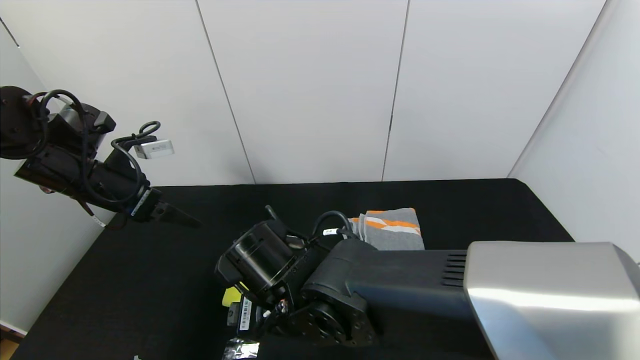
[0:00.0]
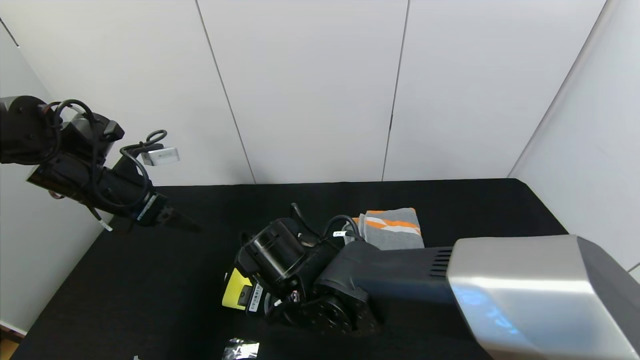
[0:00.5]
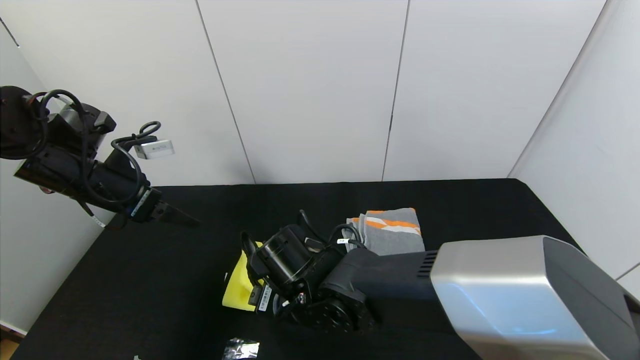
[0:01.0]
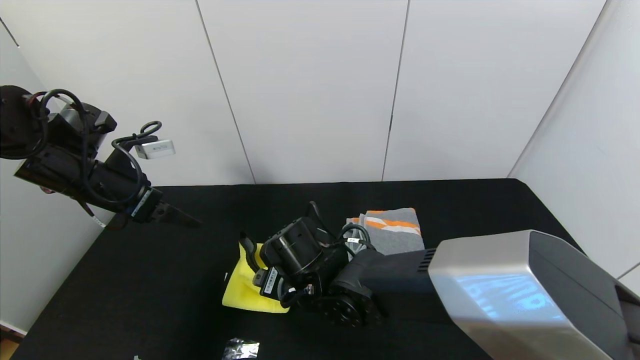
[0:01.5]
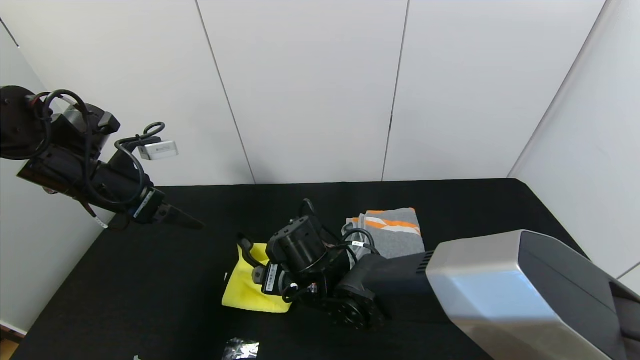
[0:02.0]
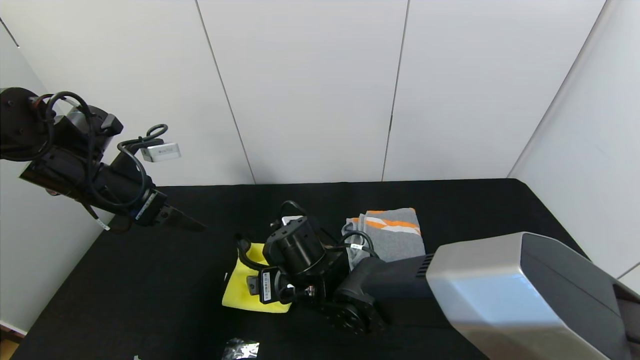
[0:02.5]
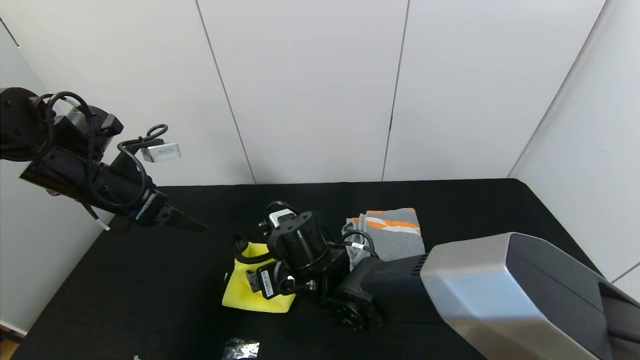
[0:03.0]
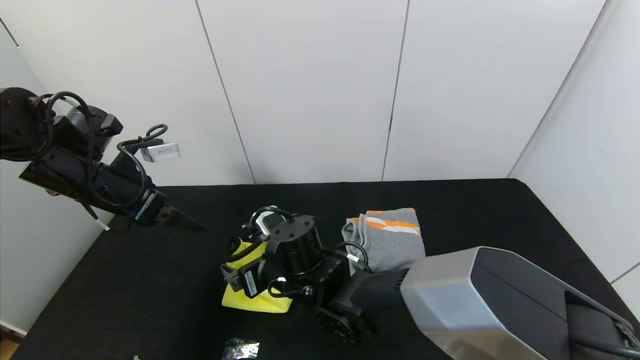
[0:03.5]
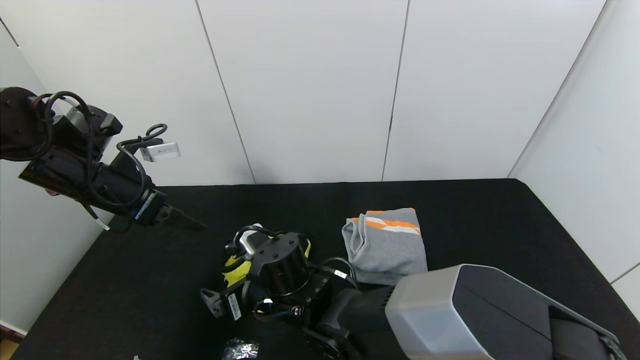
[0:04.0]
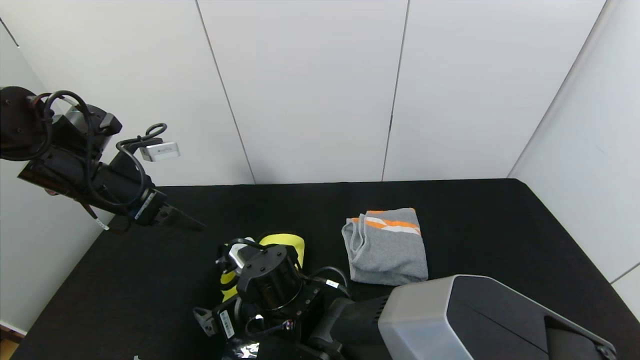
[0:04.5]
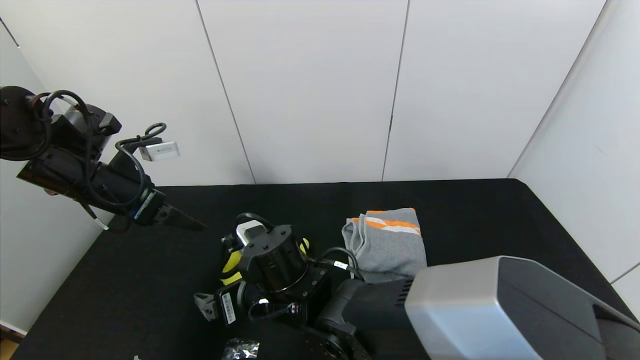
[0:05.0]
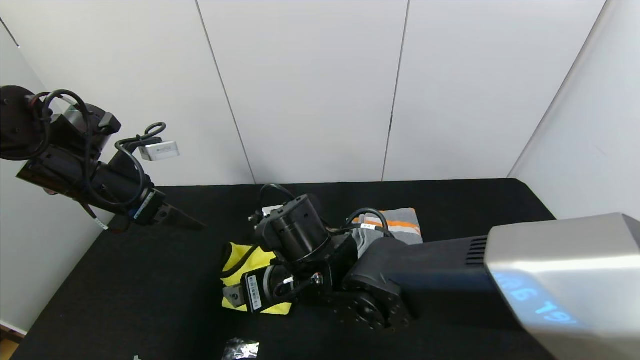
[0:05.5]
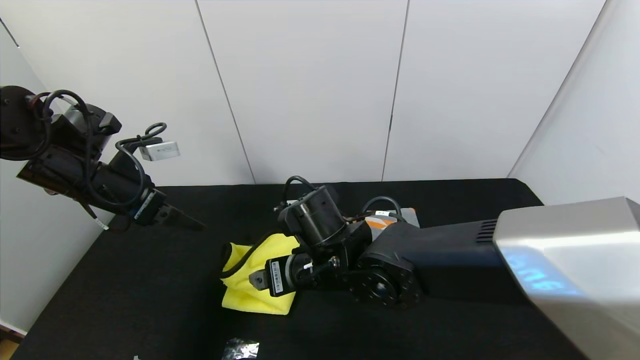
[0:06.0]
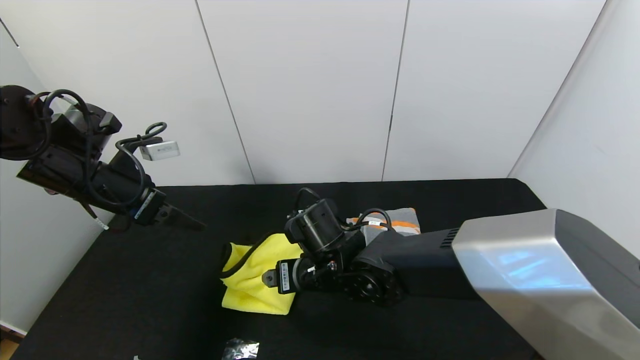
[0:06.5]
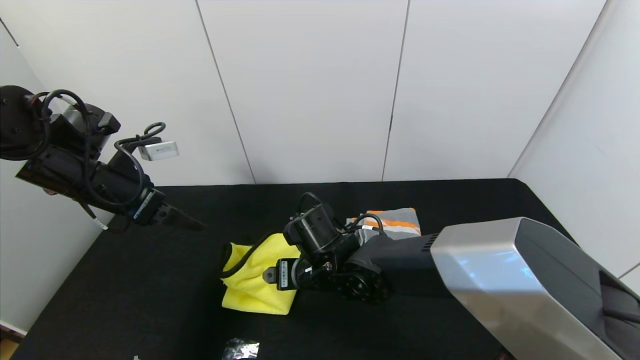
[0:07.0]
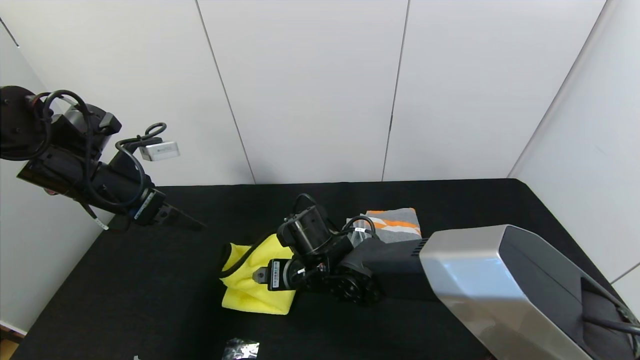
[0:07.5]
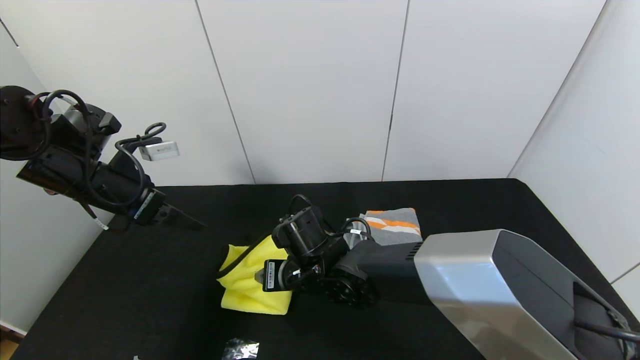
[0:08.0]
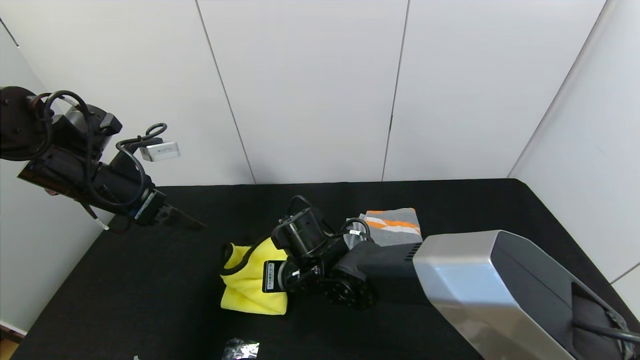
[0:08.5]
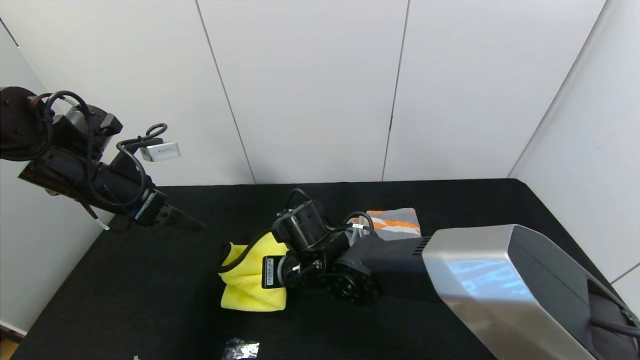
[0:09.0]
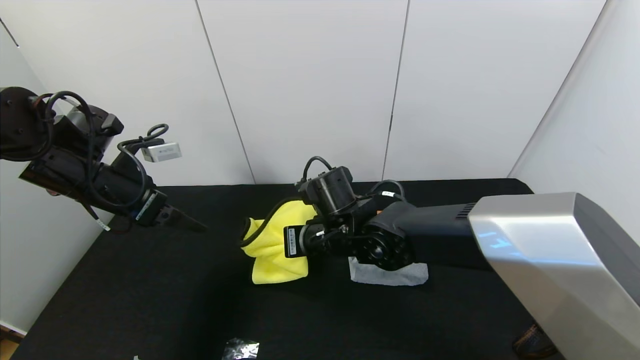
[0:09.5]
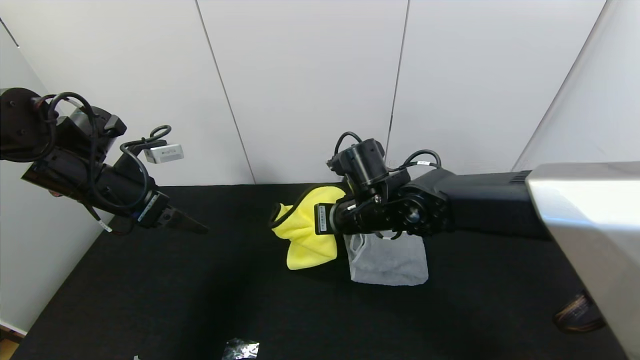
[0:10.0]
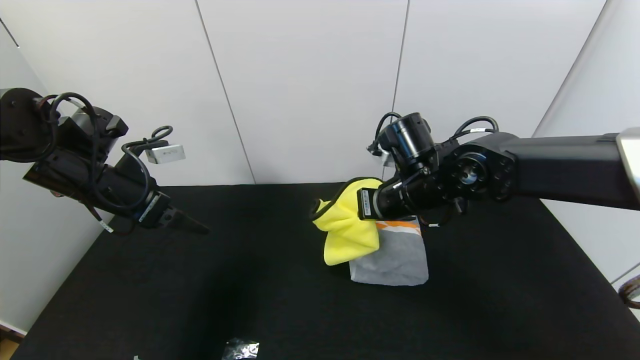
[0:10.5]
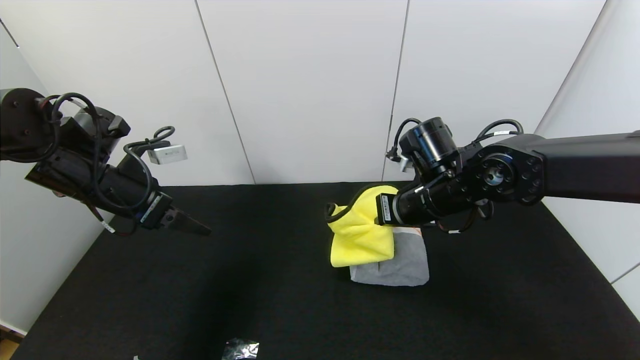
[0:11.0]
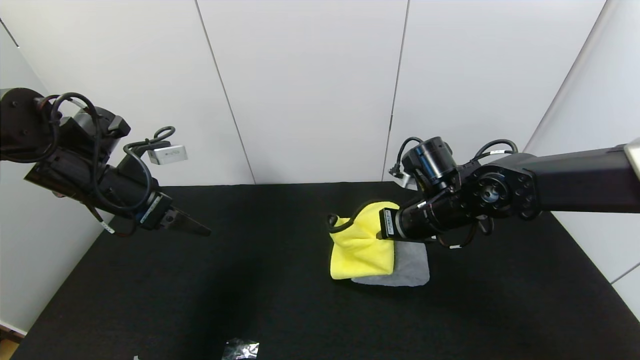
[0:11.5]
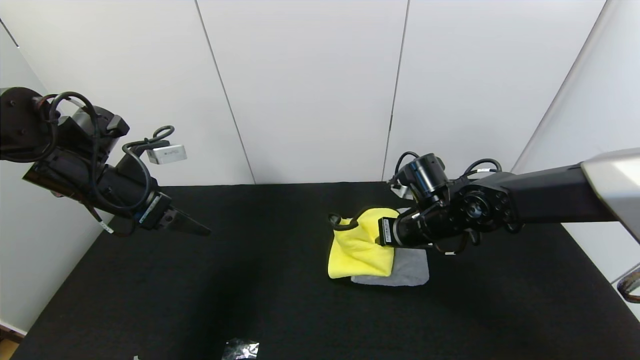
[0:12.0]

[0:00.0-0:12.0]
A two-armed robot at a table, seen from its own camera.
Task of the whole recording: Use the gripper to fold the yellow towel and grey towel in half twice,then put the yellow towel on the grey towel.
Step, 0:00.0 to 0:05.5: Fold the yellow towel from right to left with right gripper.
0:00.0 to 0:02.0: The right gripper heads forward, covering approximately 5 cm.
0:04.0 to 0:06.0: The right gripper moves to the right and upward, some 10 cm.
0:06.0 to 0:08.0: The right gripper shifts roughly 5 cm downward.
0:08.0 to 0:10.0: The right gripper is displaced to the right and upward by approximately 15 cm, and closes its fingers.
0:10.0 to 0:12.0: The right gripper travels to the right by about 10 cm.

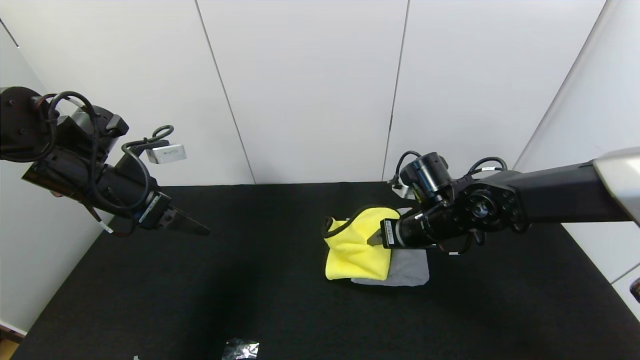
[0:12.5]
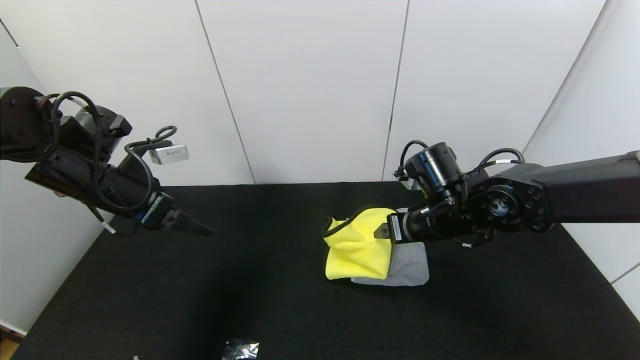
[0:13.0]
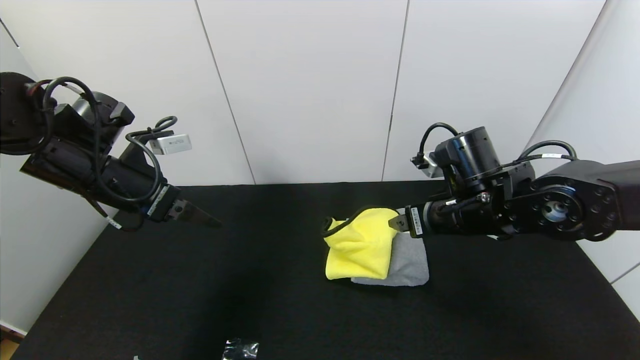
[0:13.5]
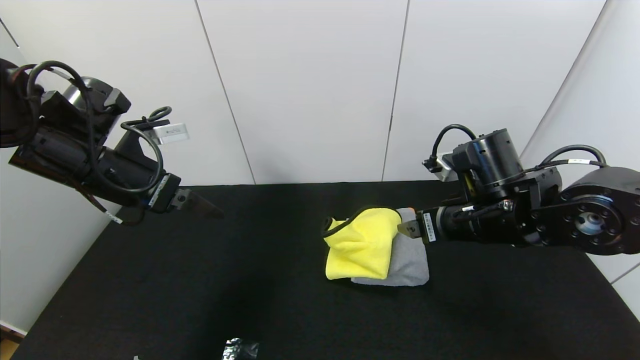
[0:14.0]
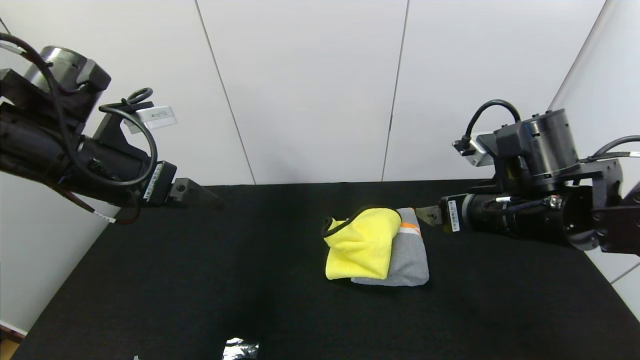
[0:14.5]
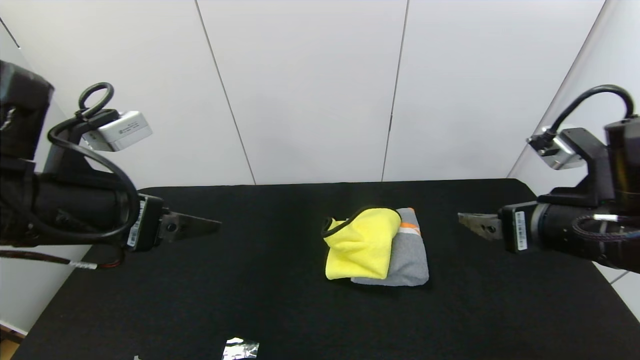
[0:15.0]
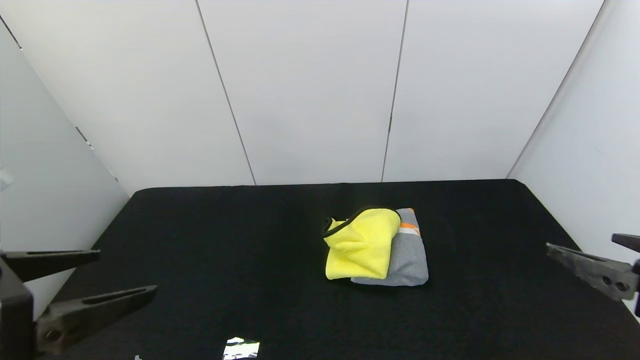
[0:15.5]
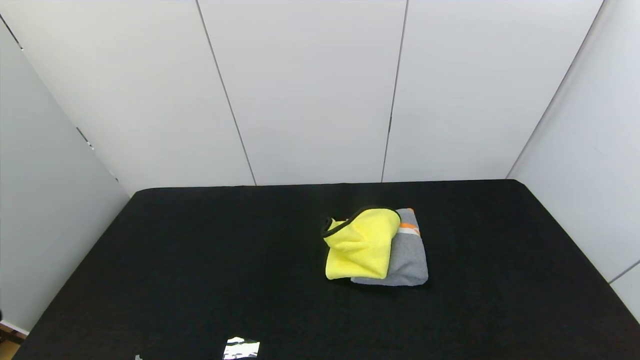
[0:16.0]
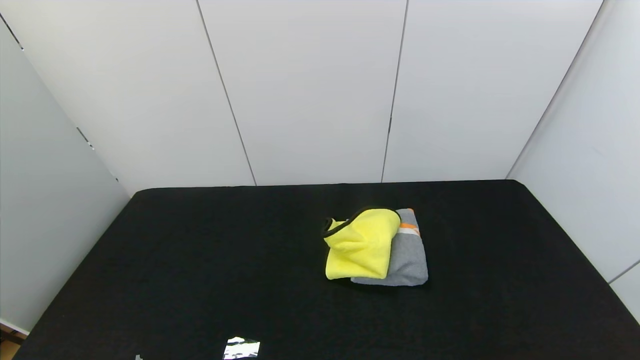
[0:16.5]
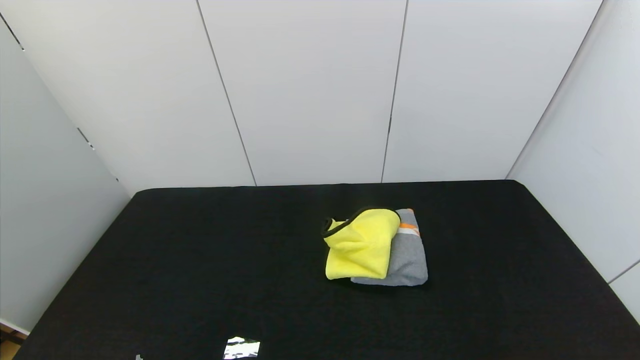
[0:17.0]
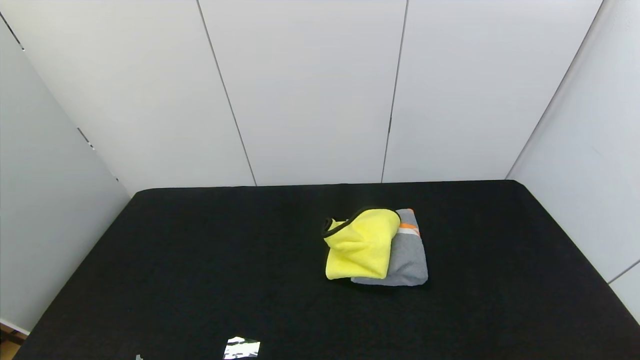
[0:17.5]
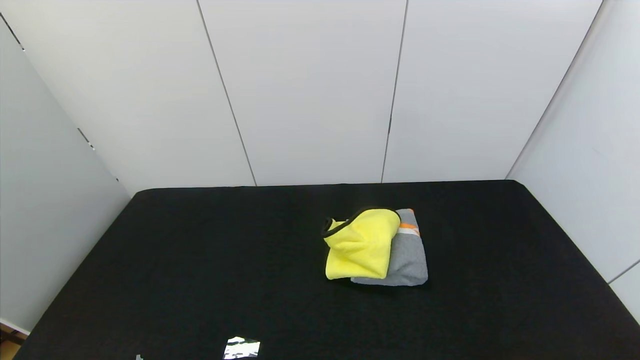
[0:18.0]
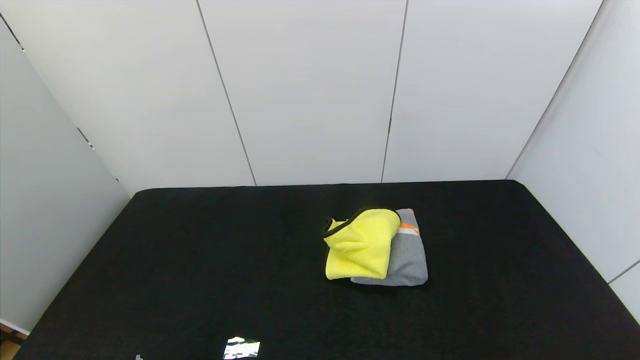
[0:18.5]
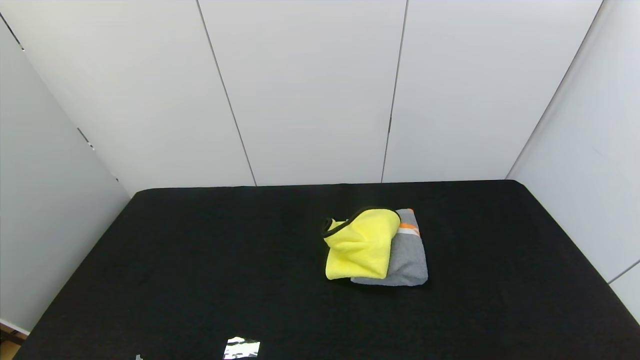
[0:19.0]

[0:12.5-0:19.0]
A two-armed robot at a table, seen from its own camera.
Task of the whole recording: Use the gripper to fold the yellow towel and grey towel in half twice,then put the yellow towel on the grey towel.
0:12.5 to 0:14.5: The right gripper goes roughly 15 cm backward, upward and to the right. Meanwhile the left gripper shifts some 10 cm backward, to the right and upward.
0:14.5 to 0:17.0: The right gripper heads backward and to the right, covering approximately 35 cm; the left gripper is displaced backward by some 35 cm.
